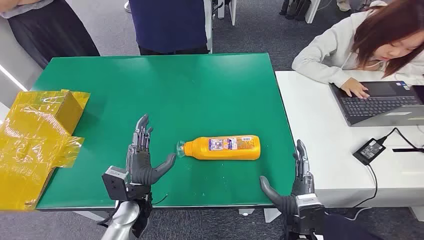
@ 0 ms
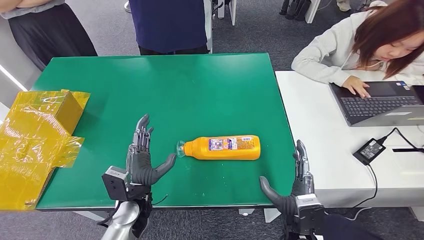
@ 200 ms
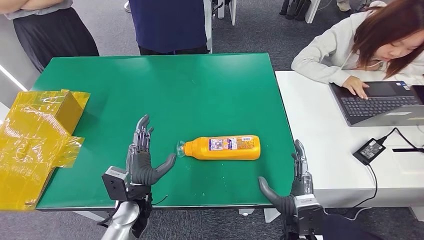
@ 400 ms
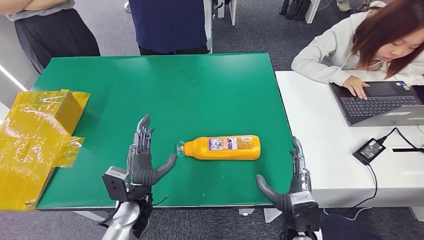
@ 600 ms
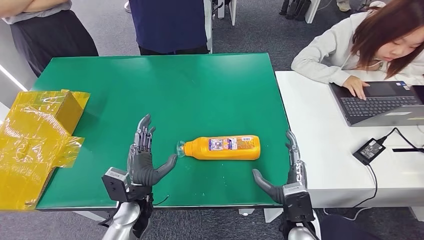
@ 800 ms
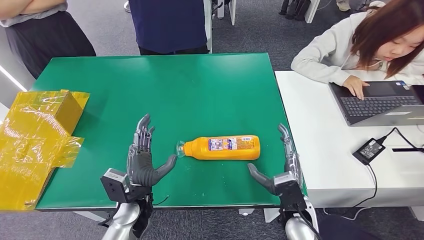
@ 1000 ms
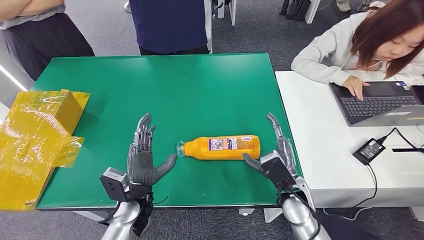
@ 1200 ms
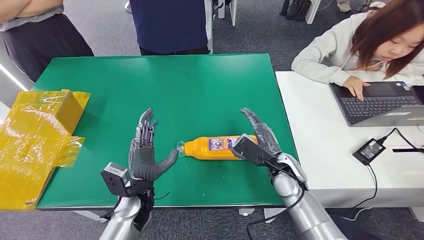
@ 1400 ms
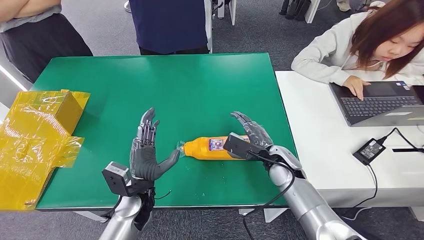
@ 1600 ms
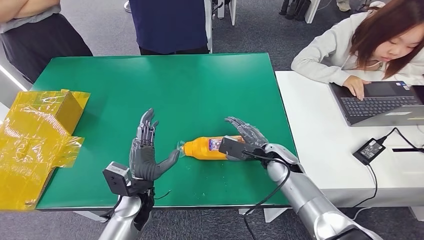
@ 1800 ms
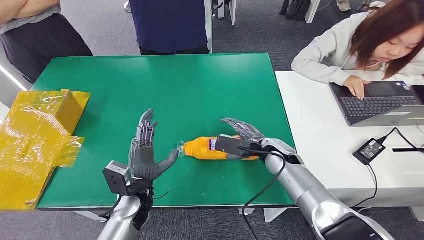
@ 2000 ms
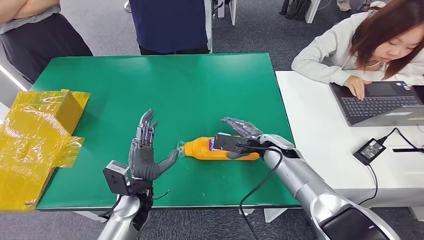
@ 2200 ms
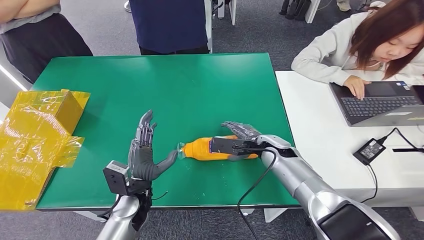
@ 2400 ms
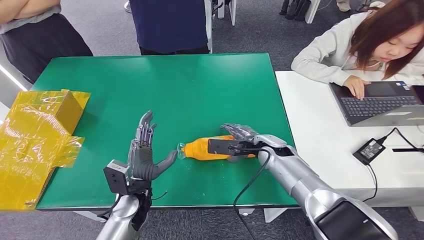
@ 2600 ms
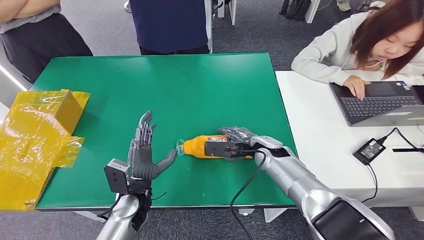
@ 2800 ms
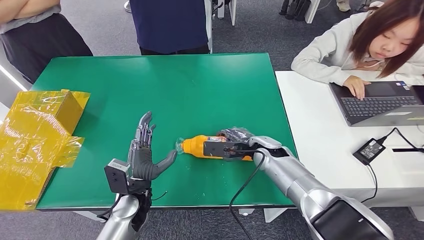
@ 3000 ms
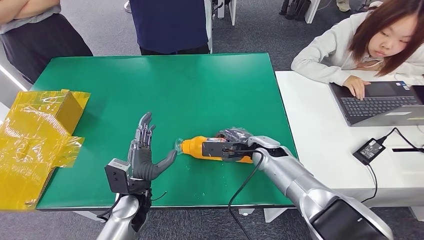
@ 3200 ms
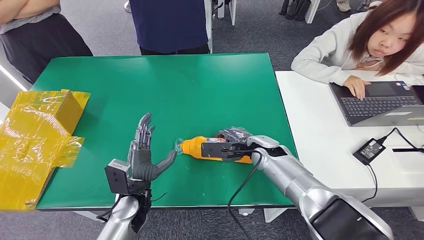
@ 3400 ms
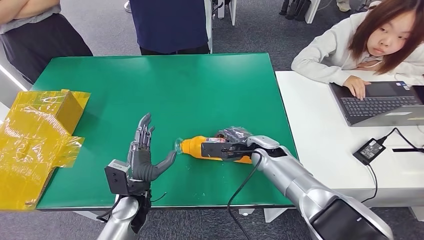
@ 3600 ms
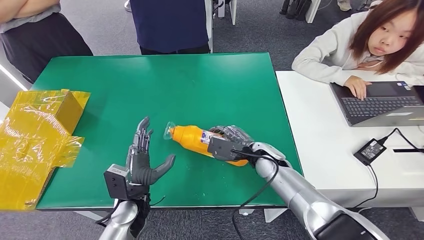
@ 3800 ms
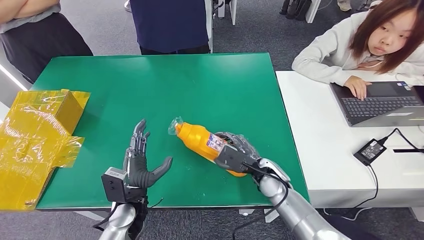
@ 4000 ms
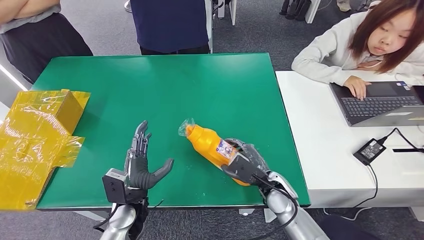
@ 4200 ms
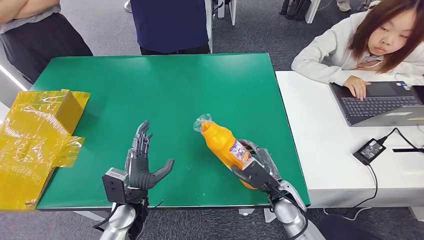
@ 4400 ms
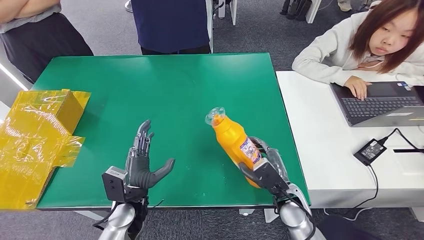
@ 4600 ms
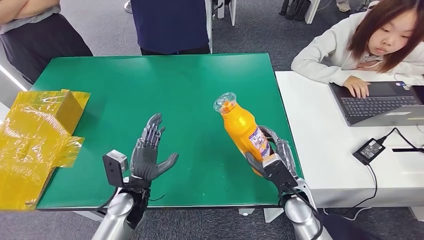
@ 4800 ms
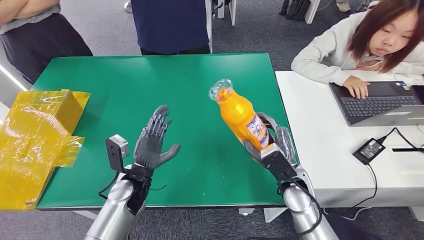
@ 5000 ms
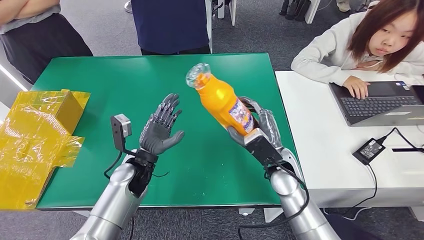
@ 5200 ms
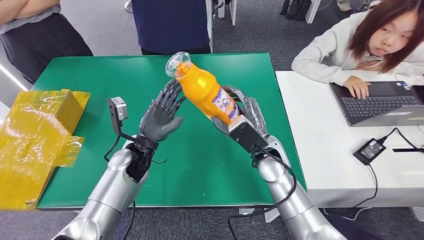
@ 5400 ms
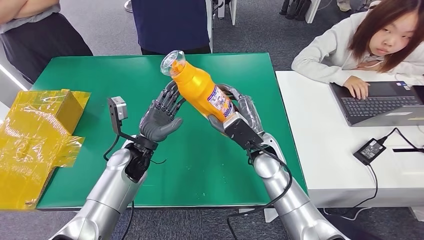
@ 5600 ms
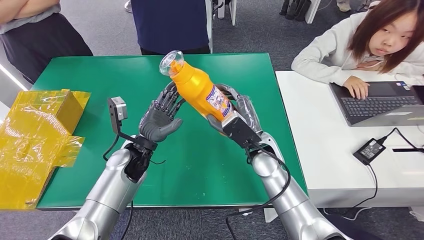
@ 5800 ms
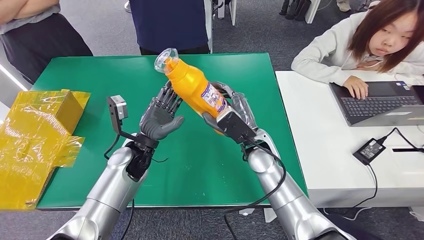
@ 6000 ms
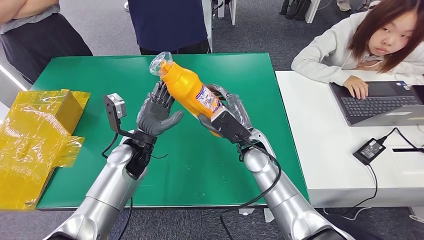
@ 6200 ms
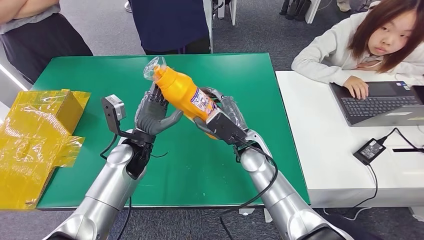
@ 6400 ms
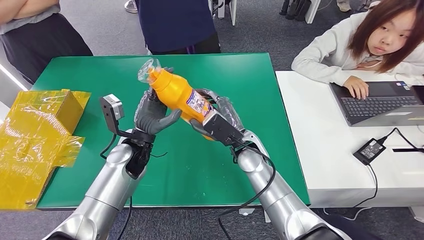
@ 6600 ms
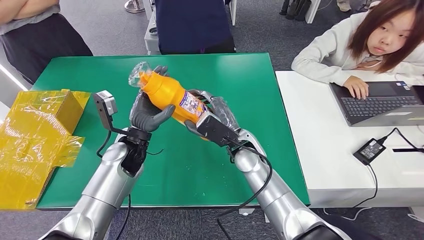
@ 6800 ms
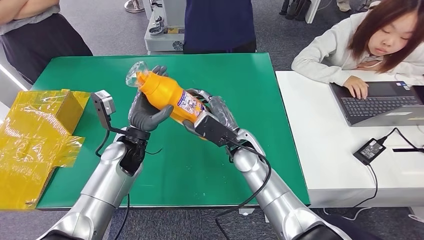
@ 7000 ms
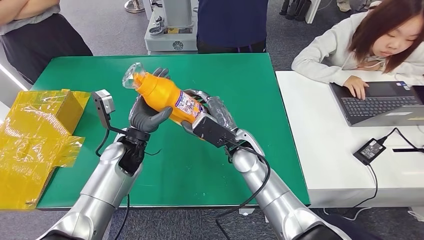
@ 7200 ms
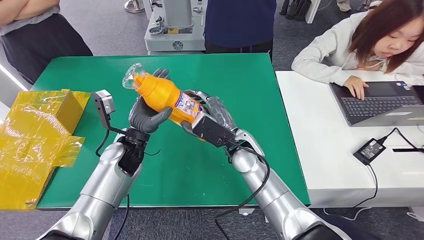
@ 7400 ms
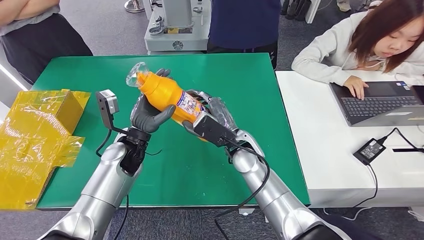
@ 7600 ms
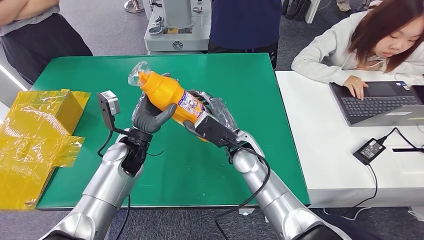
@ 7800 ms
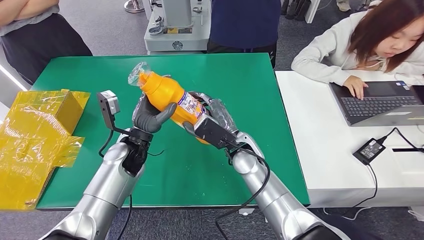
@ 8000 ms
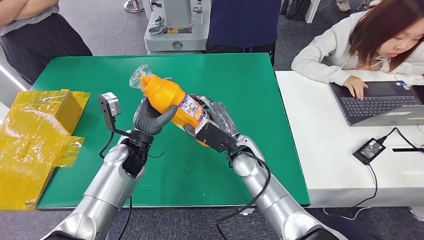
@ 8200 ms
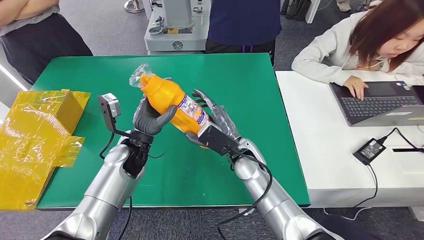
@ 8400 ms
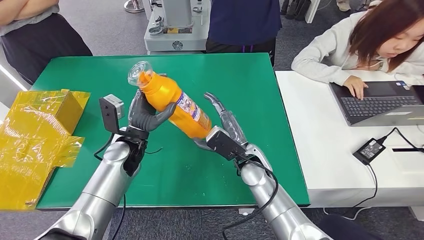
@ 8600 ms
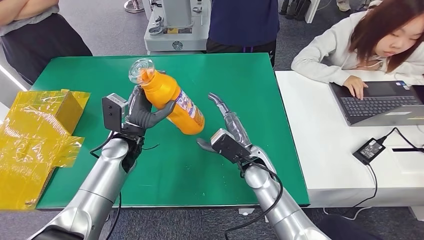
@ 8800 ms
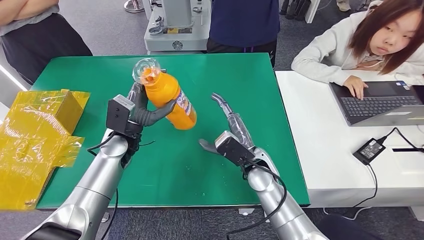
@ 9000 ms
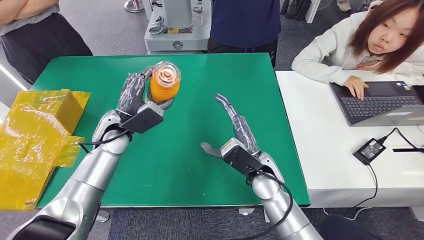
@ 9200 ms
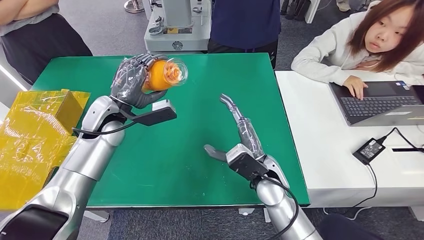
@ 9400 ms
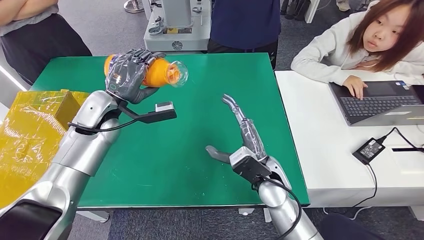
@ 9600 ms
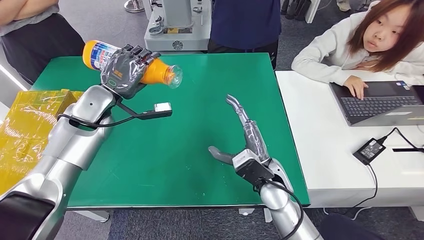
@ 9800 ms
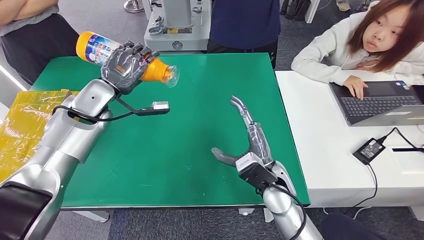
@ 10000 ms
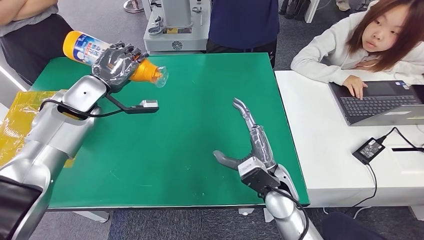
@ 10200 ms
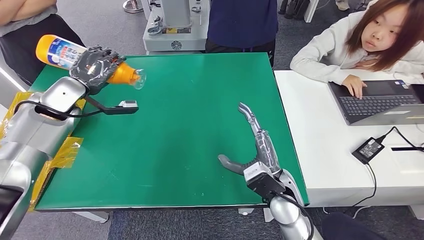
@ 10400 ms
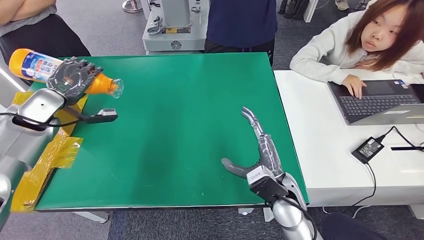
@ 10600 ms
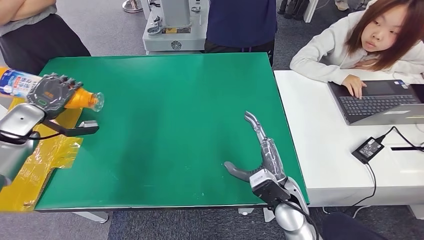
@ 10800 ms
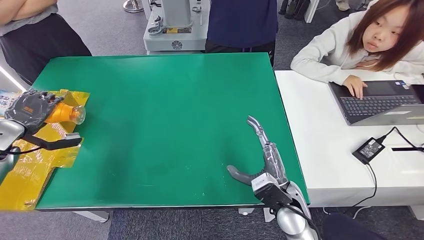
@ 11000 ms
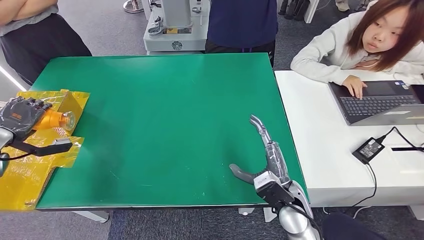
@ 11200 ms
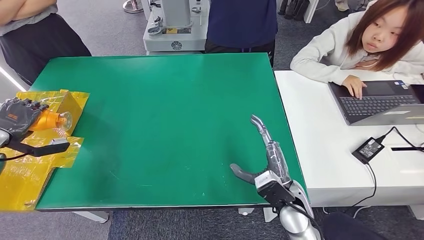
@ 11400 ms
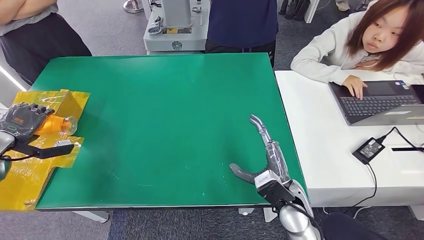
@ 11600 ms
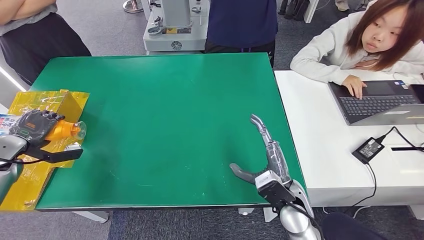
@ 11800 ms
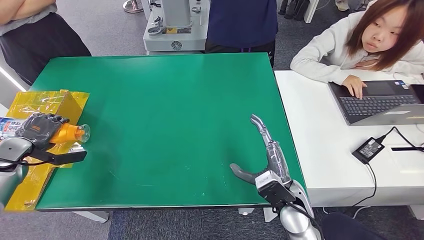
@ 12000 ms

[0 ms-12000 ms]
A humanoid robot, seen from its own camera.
Step, 0 ms to 4400 ms: Pick up the bottle from the table.
1600 ms to 3000 ms: The right hand moves about 5 cm.
3000 ms to 4400 ms: The right hand goes about 15 cm backward and downward.
4400 ms to 6000 ms: The right hand goes roughly 15 cm upward, forward and to the left; the left hand heads forward and upward, covering roughly 15 cm.
7600 ms to 9000 ms: The right hand shifts by about 5 cm.
10400 ms to 12000 ms: The left hand moves to the left, downward and backward, approximately 25 cm.

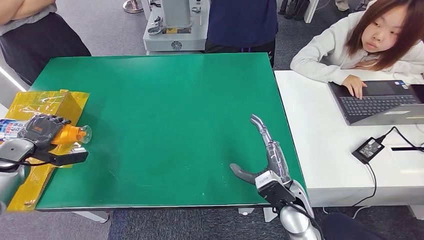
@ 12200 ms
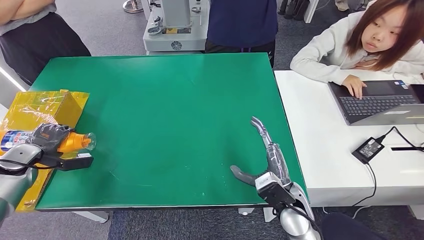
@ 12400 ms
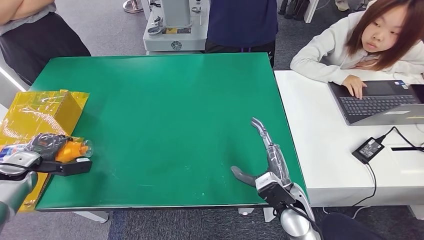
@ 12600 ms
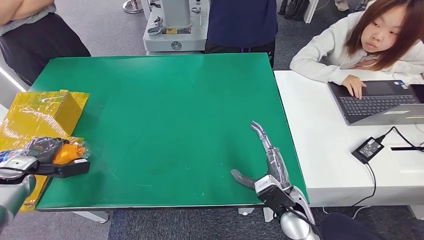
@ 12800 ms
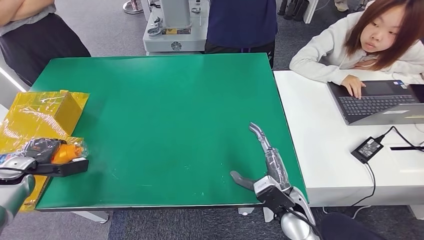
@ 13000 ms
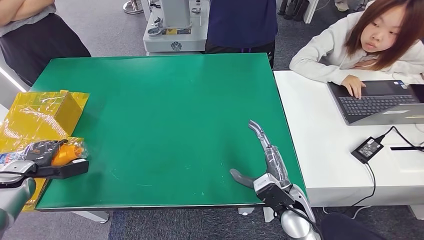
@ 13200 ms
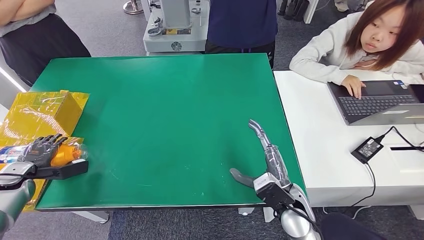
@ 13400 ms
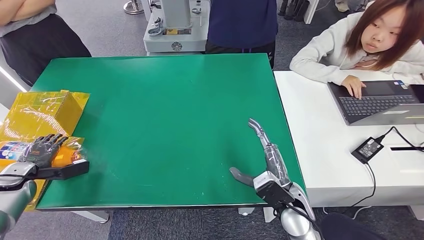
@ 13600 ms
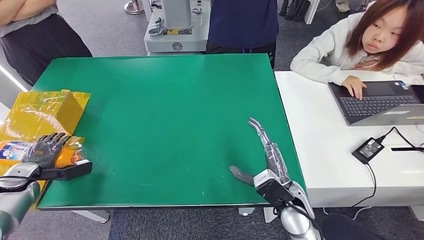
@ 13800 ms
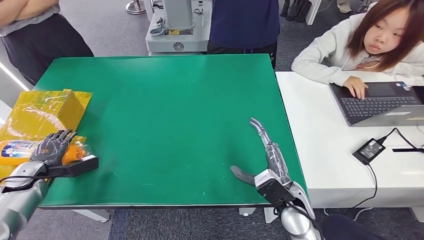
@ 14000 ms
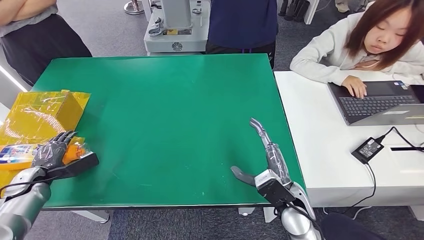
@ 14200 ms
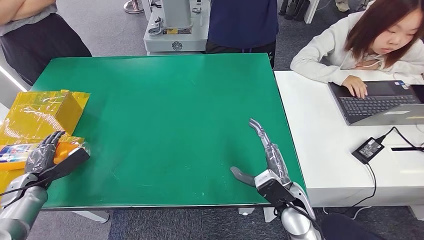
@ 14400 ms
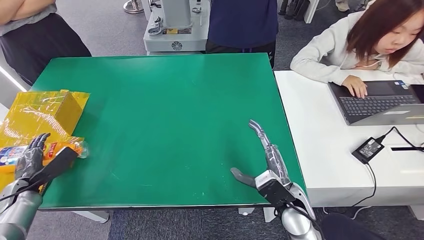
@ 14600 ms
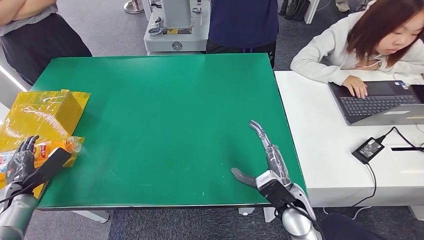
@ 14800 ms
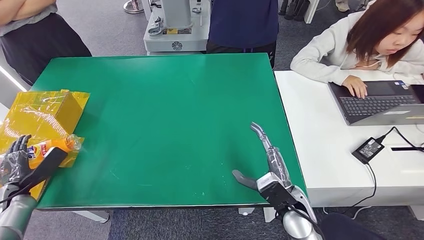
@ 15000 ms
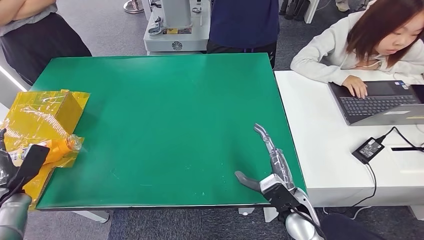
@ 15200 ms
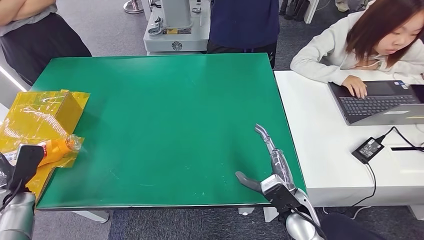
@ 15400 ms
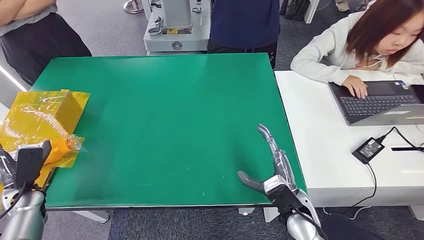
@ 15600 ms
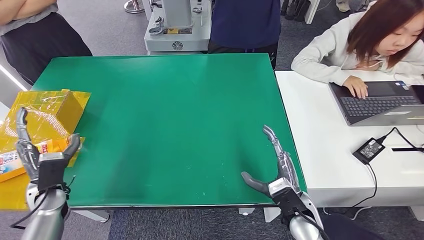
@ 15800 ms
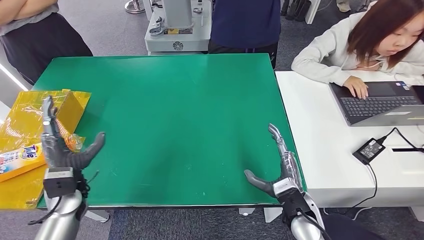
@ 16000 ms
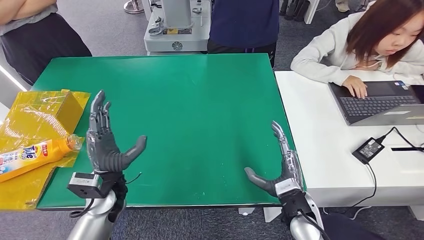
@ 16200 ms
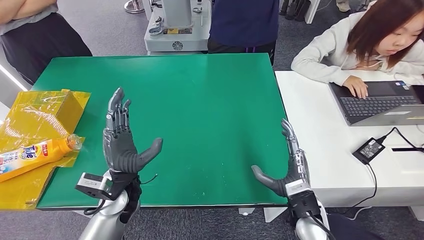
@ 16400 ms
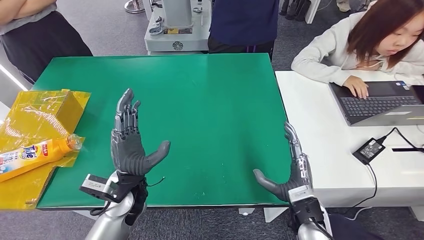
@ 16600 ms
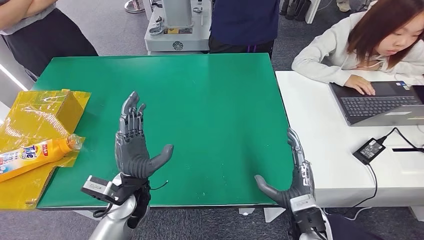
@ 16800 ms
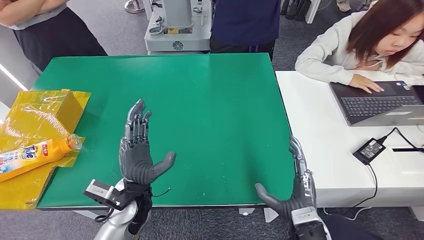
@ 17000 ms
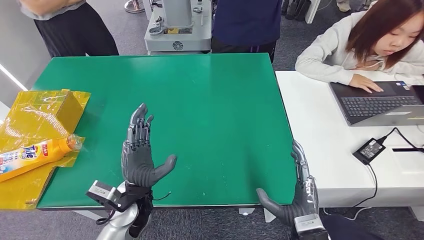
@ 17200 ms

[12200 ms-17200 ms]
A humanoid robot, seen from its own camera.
Step, 12200 ms to 17200 ms: Turn the bottle to the front side.
12200 ms to 13800 ms: The left hand travels downward by some 5 cm.
13800 ms to 15600 ms: The left hand moves to the right, roughly 5 cm.
